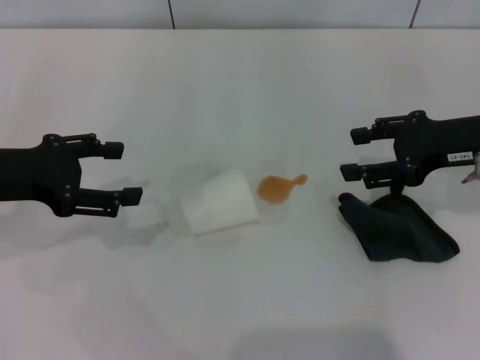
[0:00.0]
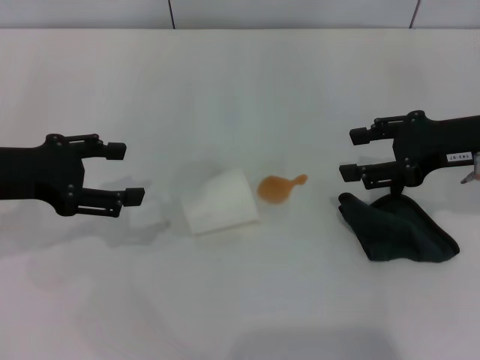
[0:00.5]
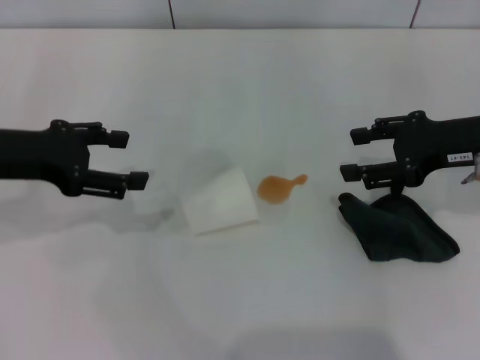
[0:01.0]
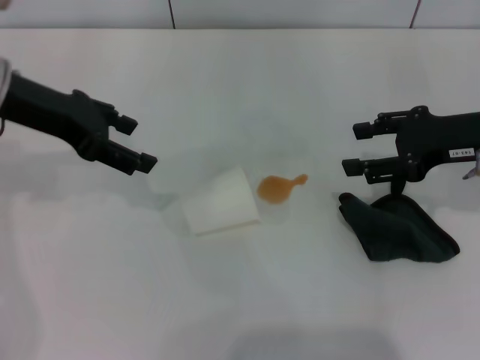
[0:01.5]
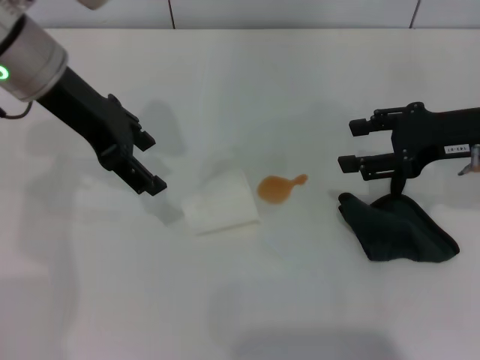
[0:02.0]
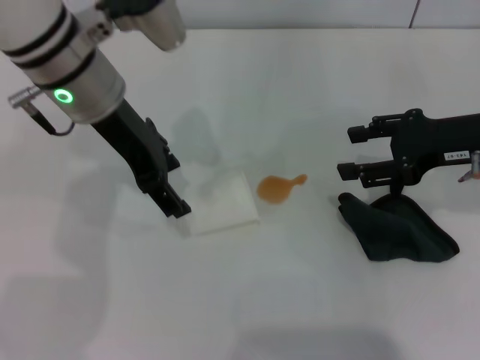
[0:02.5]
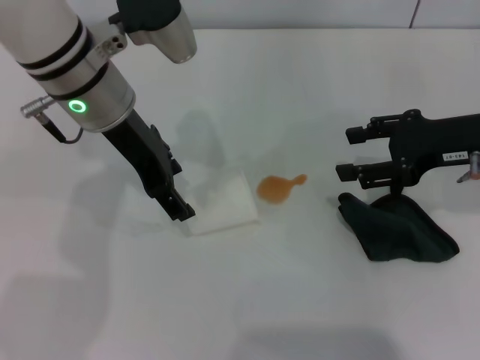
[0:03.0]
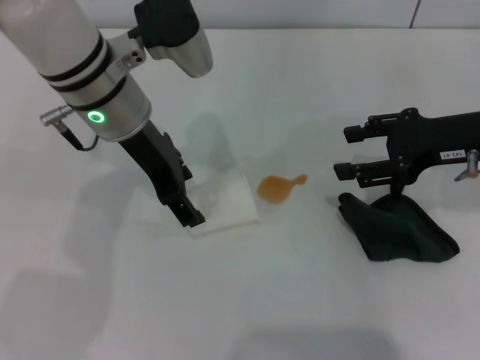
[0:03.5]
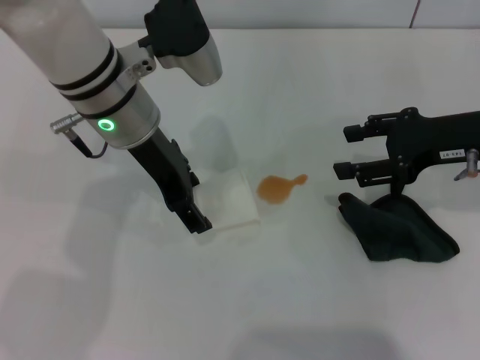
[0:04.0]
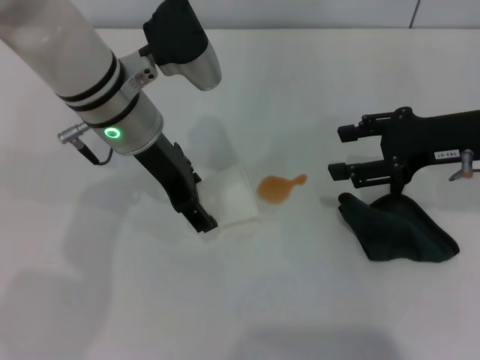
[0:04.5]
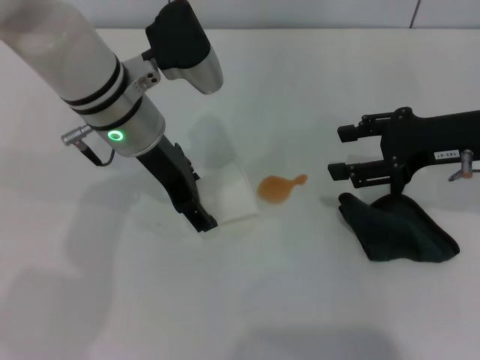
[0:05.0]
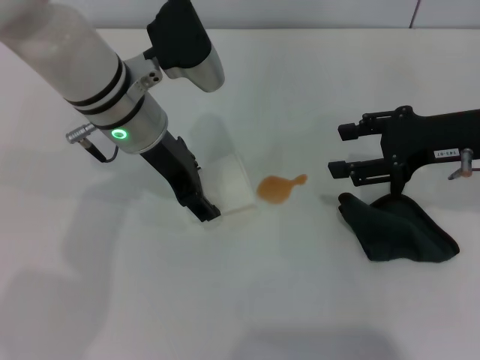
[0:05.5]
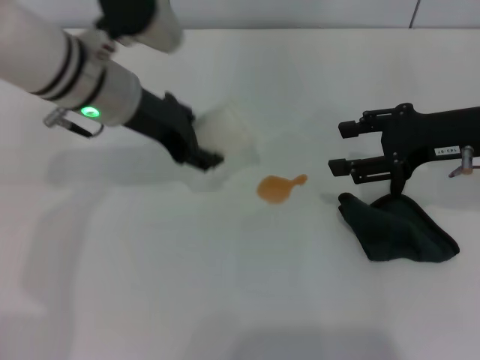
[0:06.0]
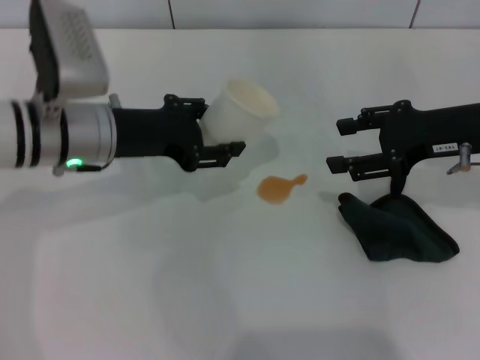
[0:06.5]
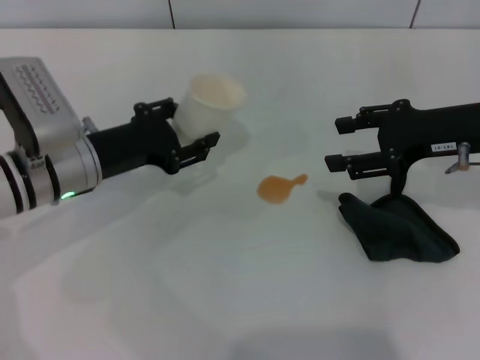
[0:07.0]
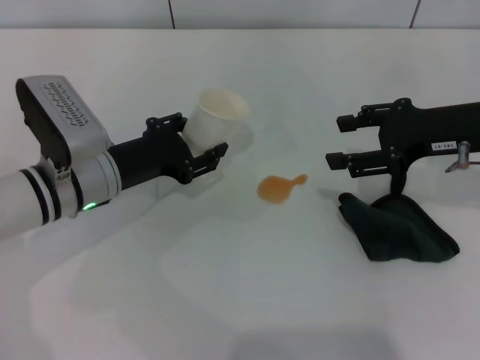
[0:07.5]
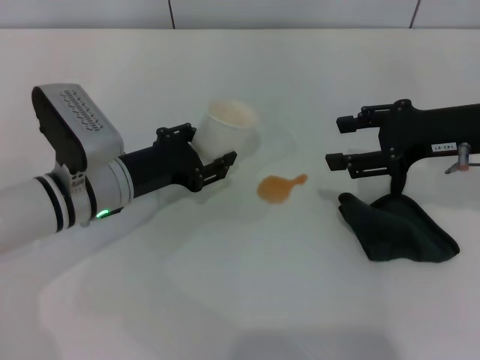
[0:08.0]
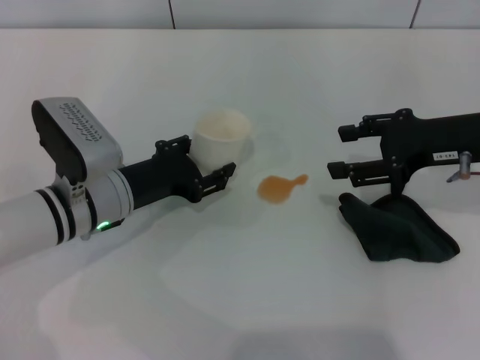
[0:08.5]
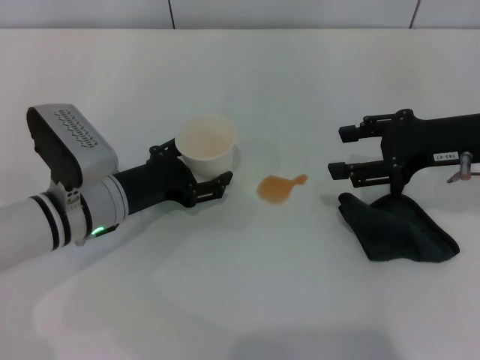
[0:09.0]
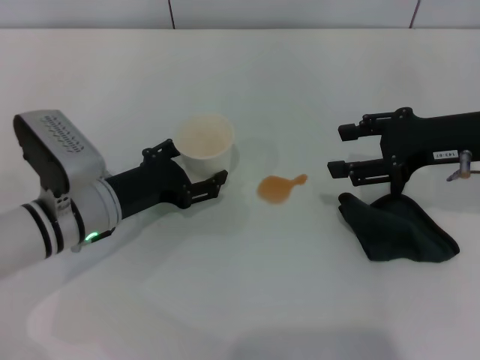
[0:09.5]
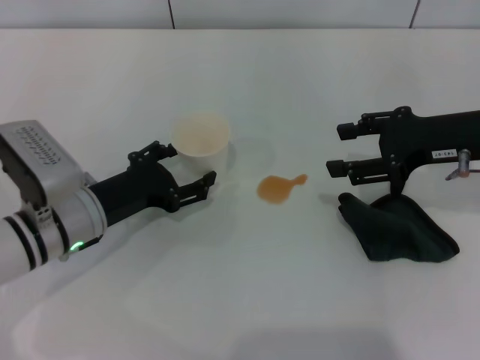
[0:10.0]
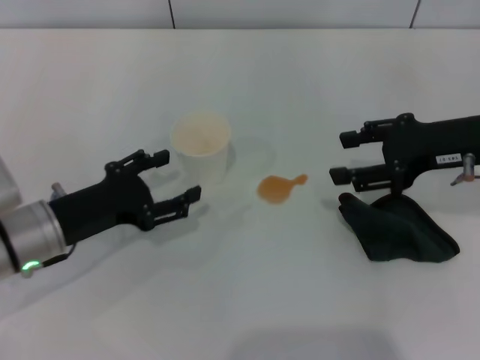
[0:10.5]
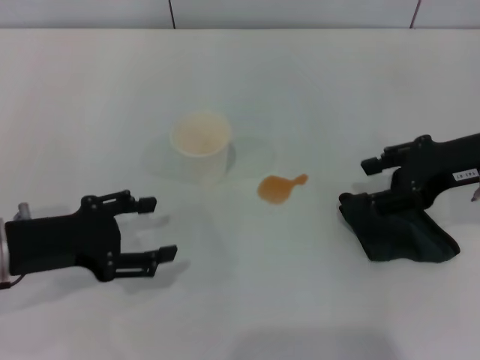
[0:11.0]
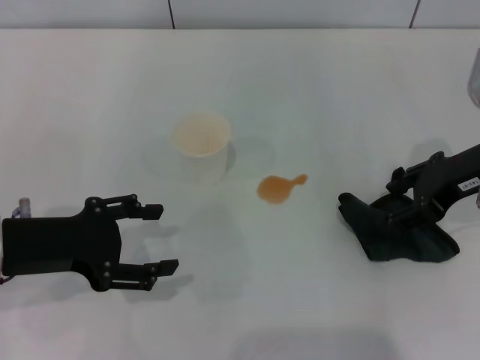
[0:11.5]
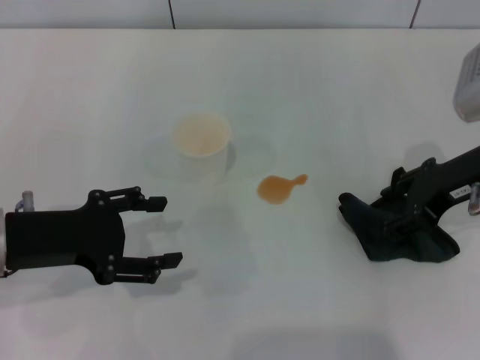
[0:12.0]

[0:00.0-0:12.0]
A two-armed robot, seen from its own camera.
Step, 0:00.0 to 0:05.5: Grasp the paper cup with the left gripper.
Step, 0:06.0 to 0:10.5: Stand the paper cup upright with the left gripper.
0:00.0 to 0:02.0: The left gripper moves to the right, forward and upward, about 15 cm.
0:02.0 to 0:04.0: The left gripper shifts approximately 10 cm to the right and downward.
0:04.0 to 0:06.0: The left gripper closes up.
0:06.0 to 0:08.0: The left gripper heads downward and backward, covering roughly 15 cm.
0:08.0 to 0:10.0: The left gripper opens.
0:10.0 to 0:12.0: The left gripper is displaced upward and to the left by approximately 10 cm.

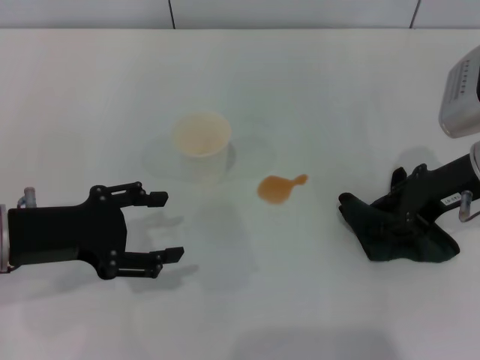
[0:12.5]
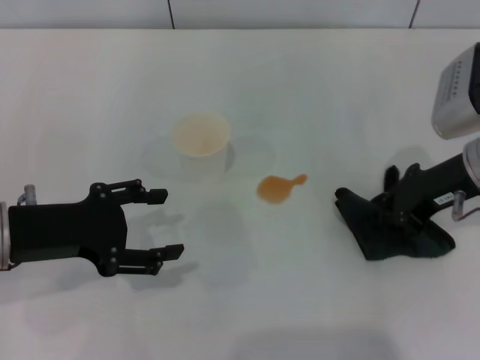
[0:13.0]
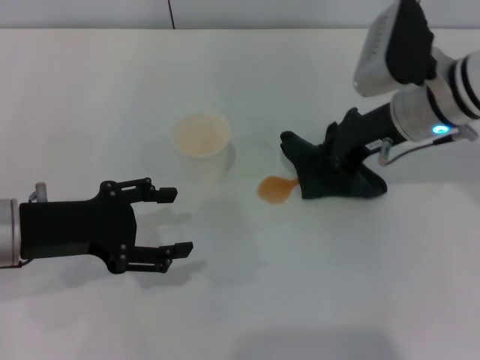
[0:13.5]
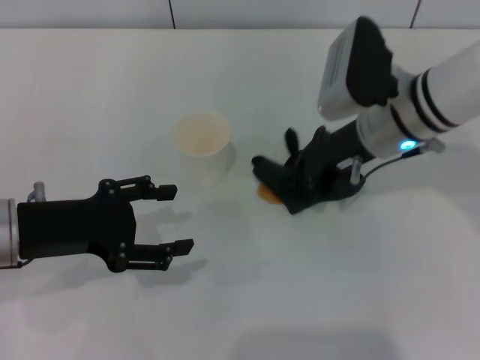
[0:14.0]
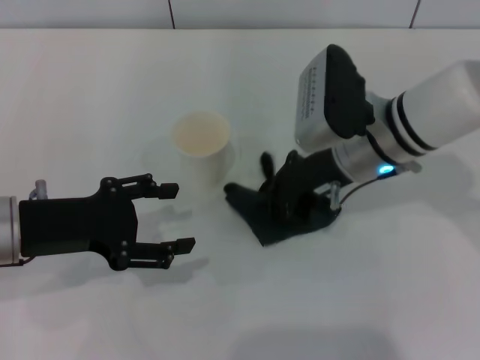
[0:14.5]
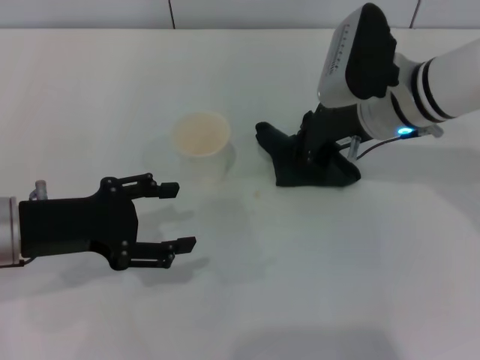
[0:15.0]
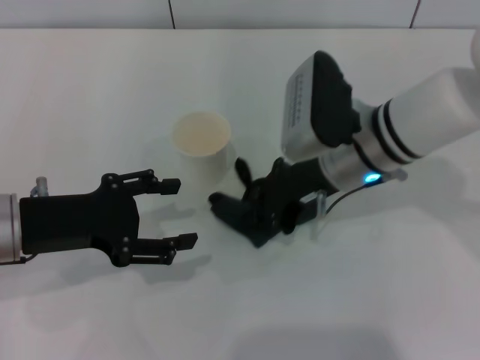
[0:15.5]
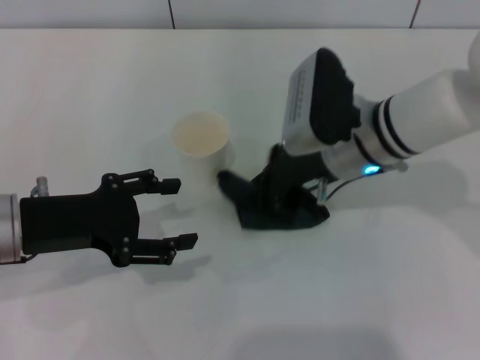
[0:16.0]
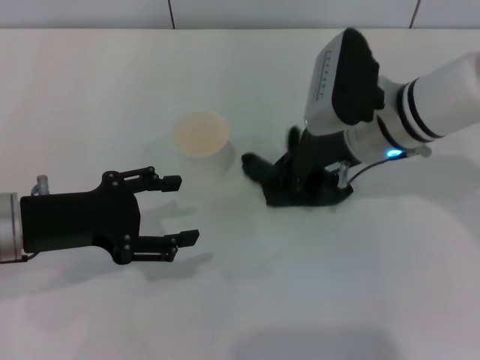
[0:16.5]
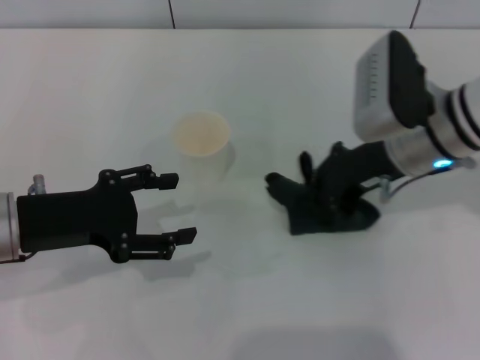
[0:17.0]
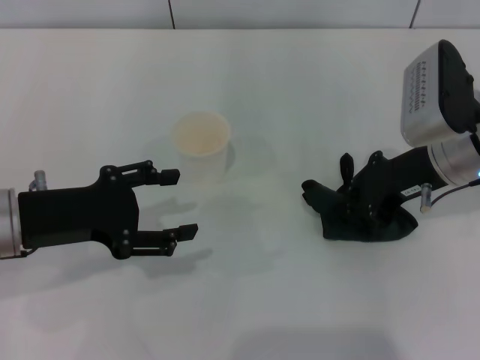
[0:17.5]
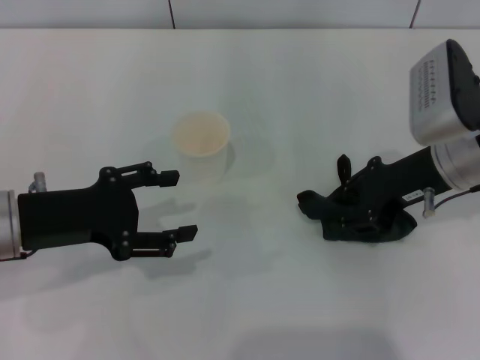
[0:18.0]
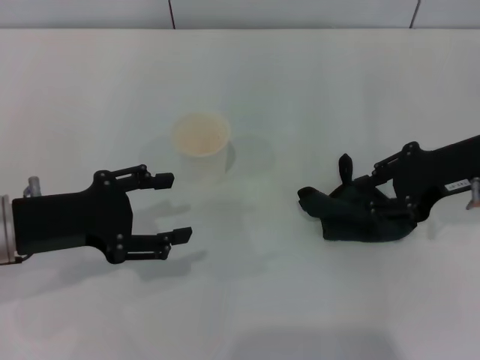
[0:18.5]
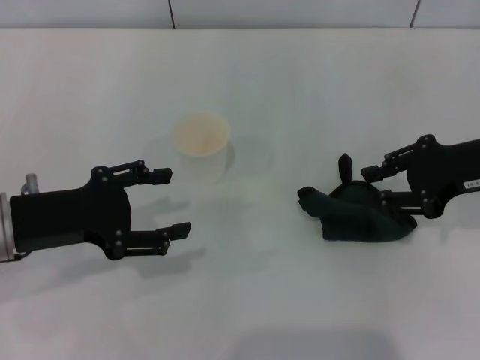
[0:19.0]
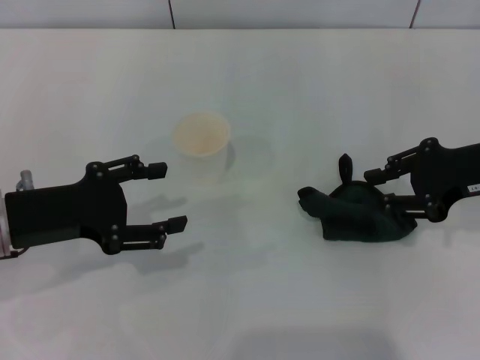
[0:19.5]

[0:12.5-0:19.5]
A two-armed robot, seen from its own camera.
Step, 0:13.0 to 0:16.5: Wipe the stains off the table with the right gripper.
Step, 0:17.0 to 0:18.5: Place the rag on the table with the right gripper.
0:12.5 to 0:14.5: The right gripper heads to the left, covering about 10 cm, and closes its fingers.
0:14.5 to 0:16.0: The grippers move only a little.
0:16.0 to 0:17.5: The right gripper is displaced to the right by about 10 cm.
0:17.5 to 0:19.5: The right gripper heads to the right, covering roughly 5 cm, and opens its fingers.

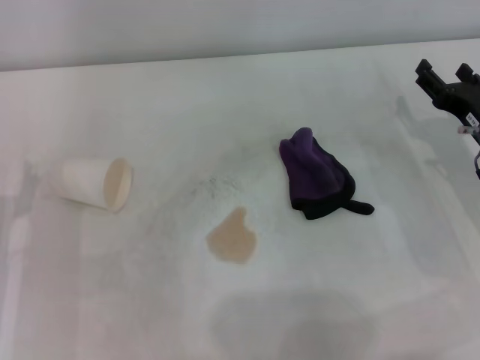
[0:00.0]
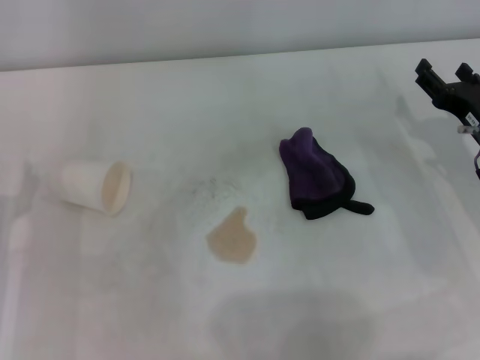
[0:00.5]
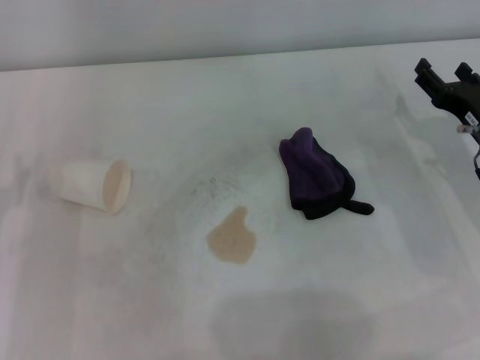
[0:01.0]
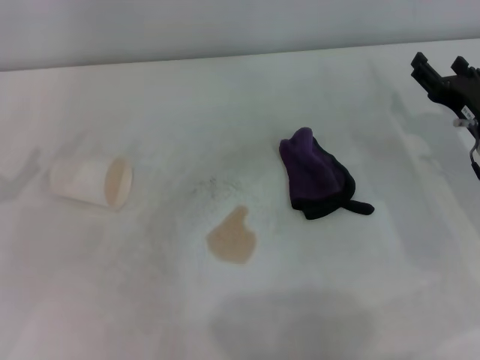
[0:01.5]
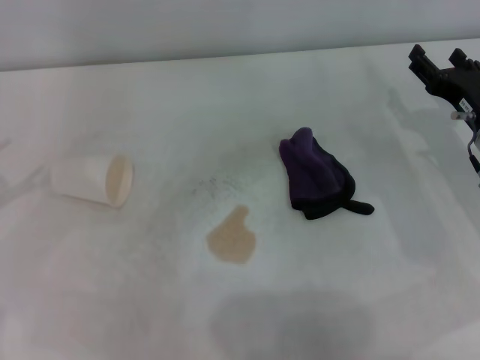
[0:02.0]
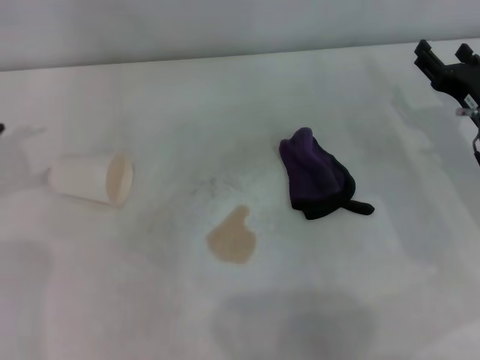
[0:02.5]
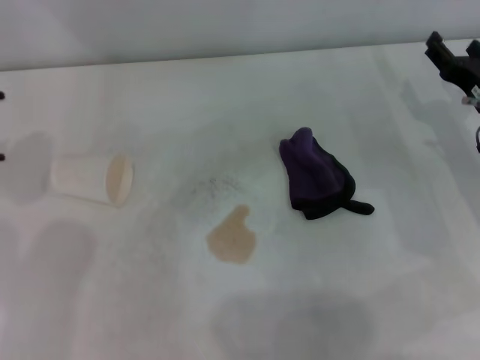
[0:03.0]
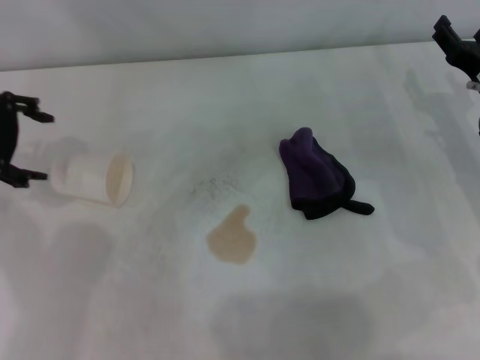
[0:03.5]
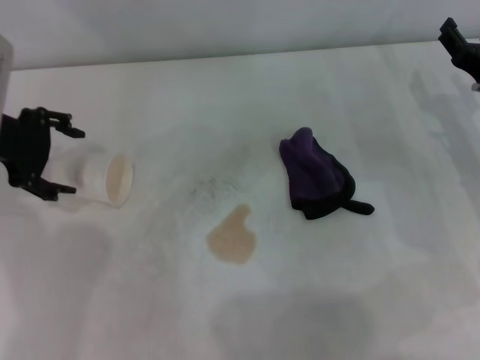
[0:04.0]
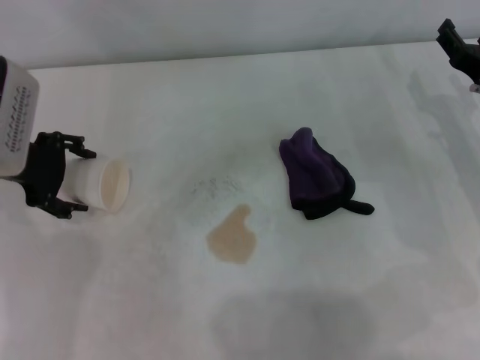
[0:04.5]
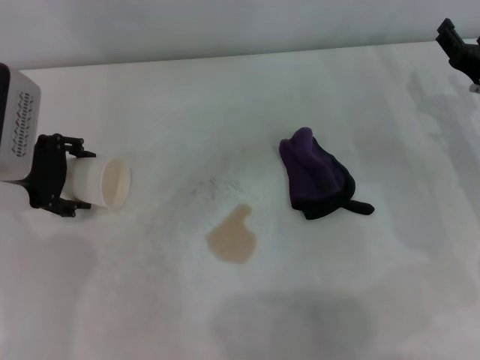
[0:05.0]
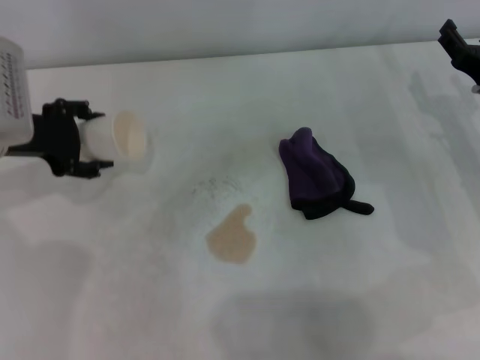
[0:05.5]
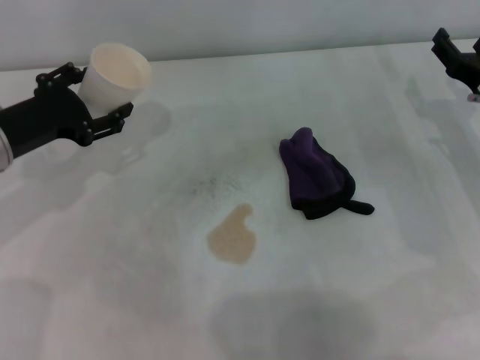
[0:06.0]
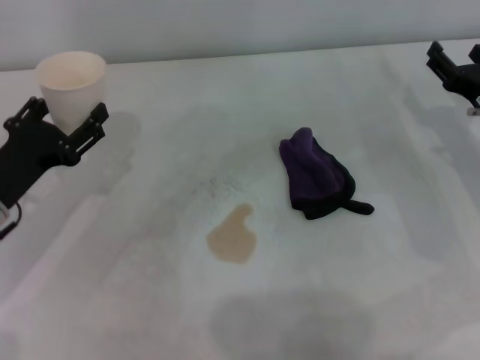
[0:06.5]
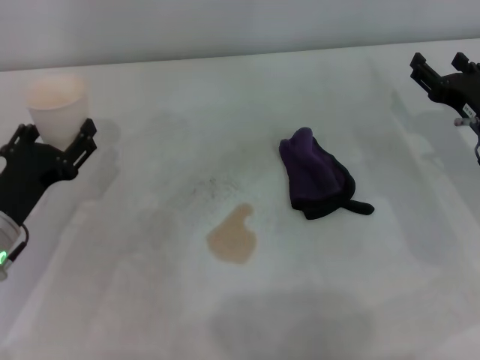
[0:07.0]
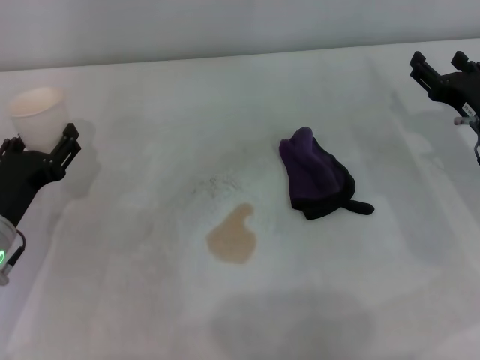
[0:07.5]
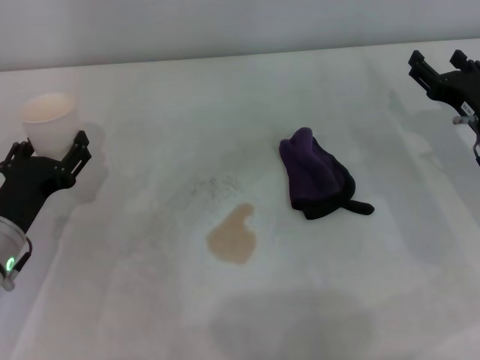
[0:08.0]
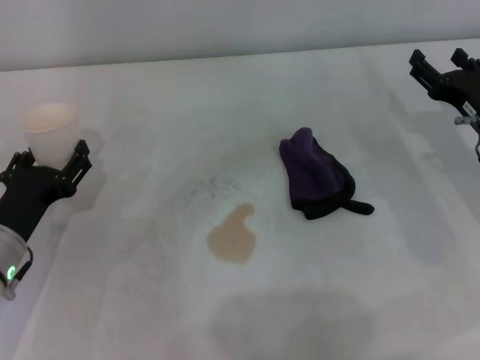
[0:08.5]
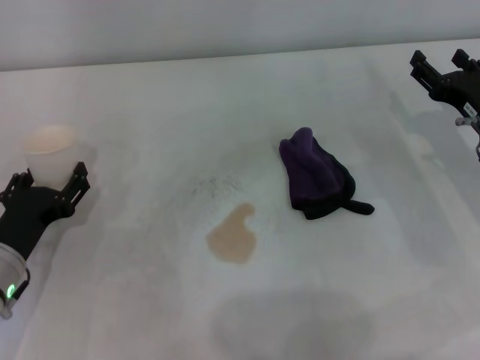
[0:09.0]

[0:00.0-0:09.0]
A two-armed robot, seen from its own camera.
Step, 0:00.0 to 0:05.0: Grasp the paper cup with the left gripper.
0:02.0 to 0:04.5: The left gripper shifts some 15 cm to the right and forward.
0:04.5 to 0:07.0: The left gripper is displaced backward and downward by about 15 cm.
0:07.0 to 0:09.0: The grippers move only a little.
